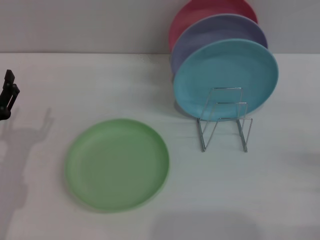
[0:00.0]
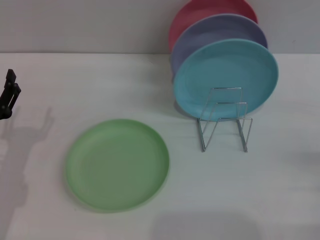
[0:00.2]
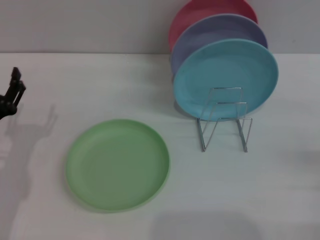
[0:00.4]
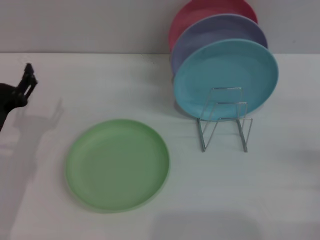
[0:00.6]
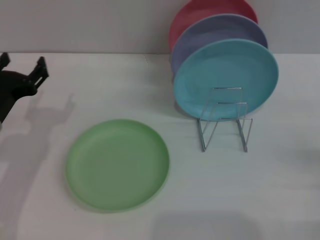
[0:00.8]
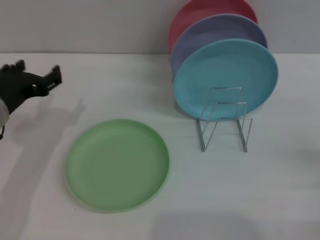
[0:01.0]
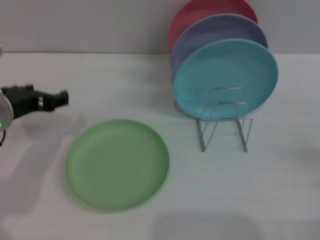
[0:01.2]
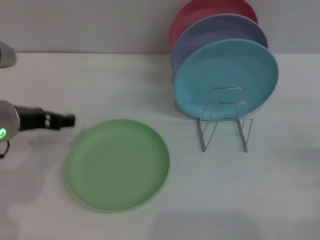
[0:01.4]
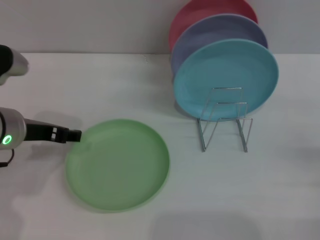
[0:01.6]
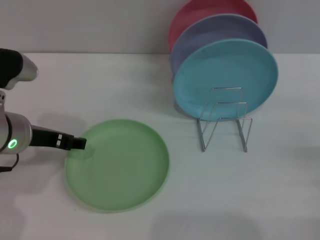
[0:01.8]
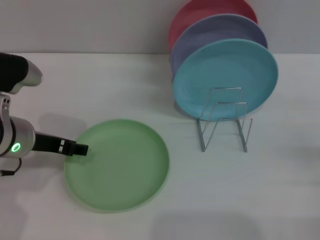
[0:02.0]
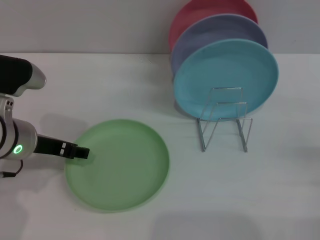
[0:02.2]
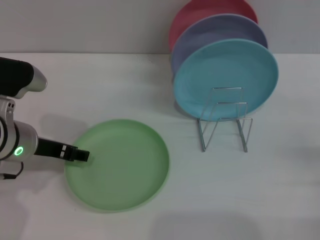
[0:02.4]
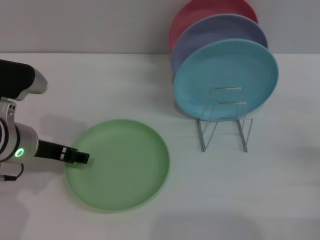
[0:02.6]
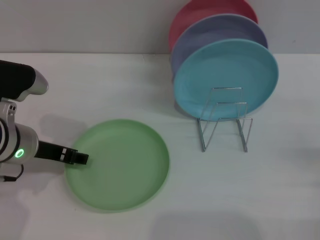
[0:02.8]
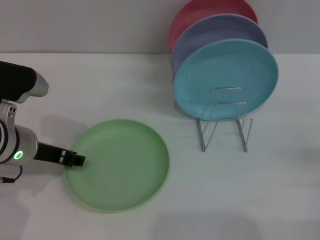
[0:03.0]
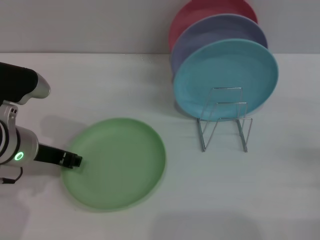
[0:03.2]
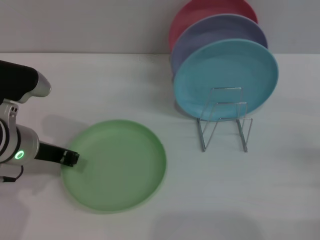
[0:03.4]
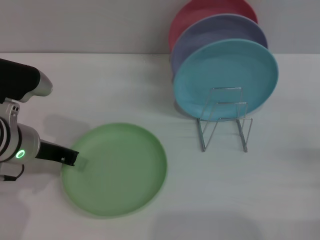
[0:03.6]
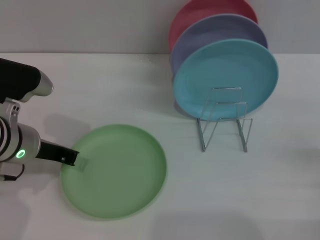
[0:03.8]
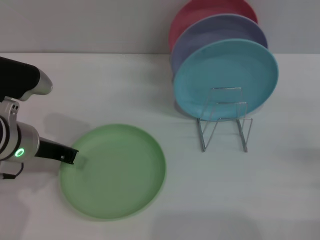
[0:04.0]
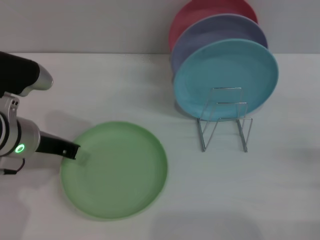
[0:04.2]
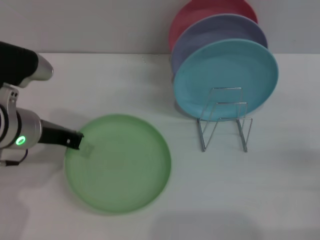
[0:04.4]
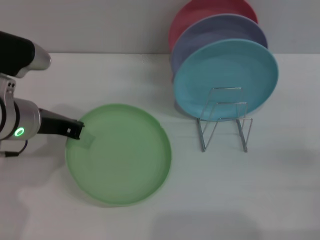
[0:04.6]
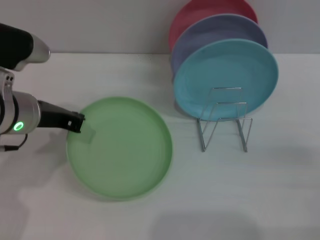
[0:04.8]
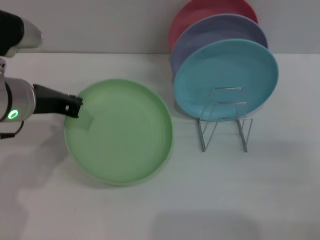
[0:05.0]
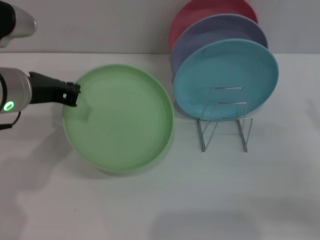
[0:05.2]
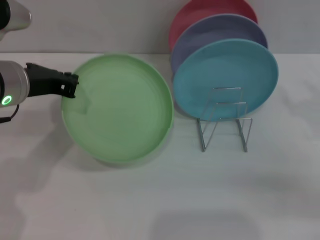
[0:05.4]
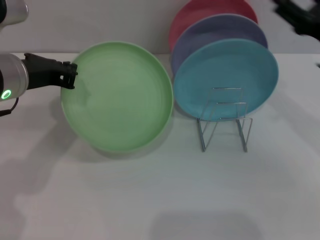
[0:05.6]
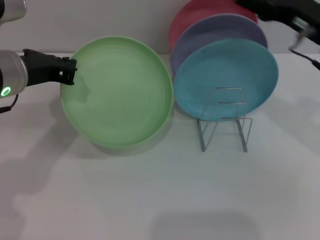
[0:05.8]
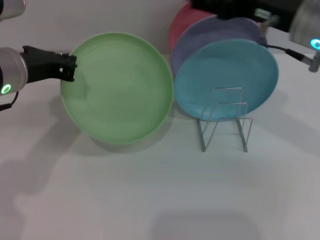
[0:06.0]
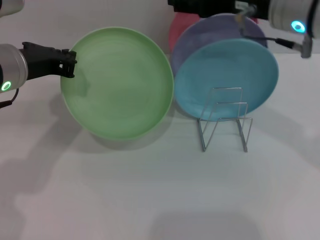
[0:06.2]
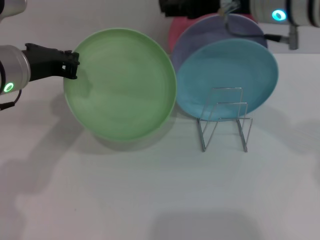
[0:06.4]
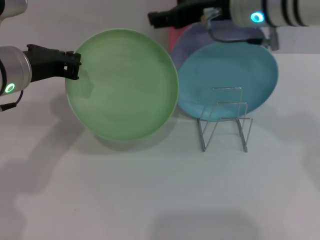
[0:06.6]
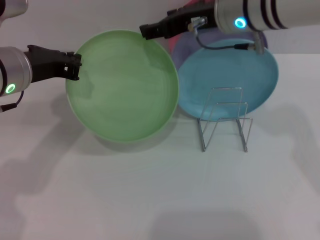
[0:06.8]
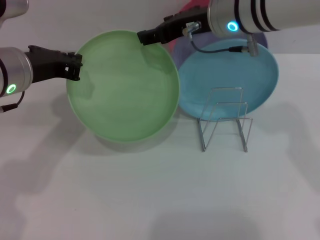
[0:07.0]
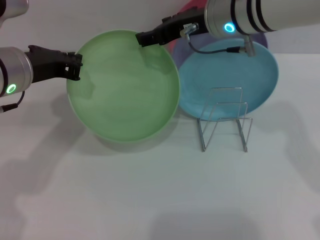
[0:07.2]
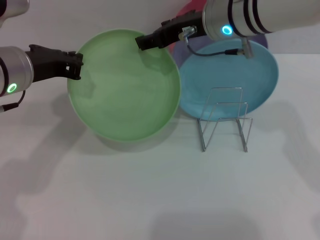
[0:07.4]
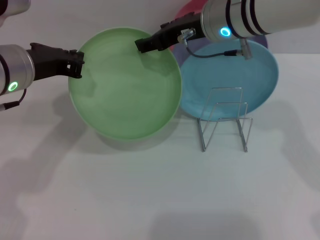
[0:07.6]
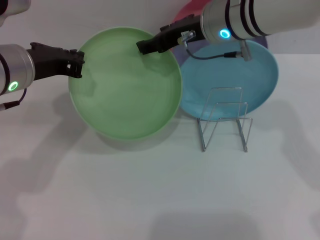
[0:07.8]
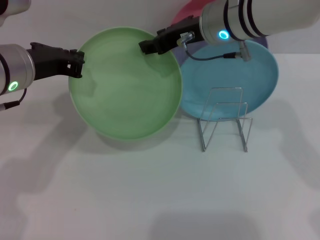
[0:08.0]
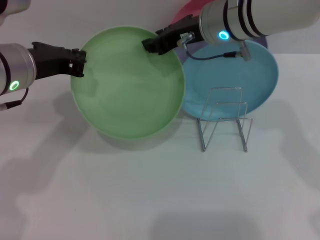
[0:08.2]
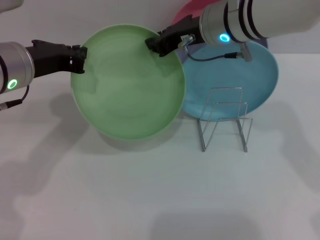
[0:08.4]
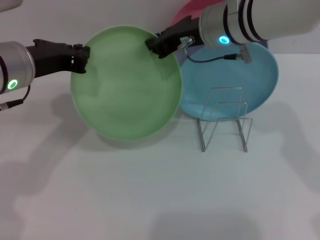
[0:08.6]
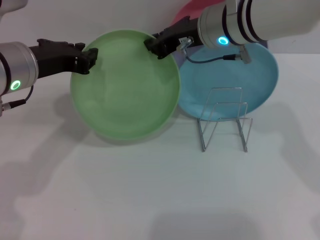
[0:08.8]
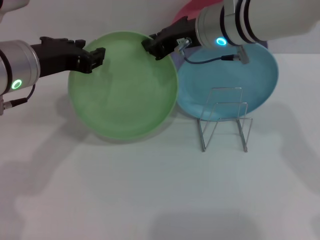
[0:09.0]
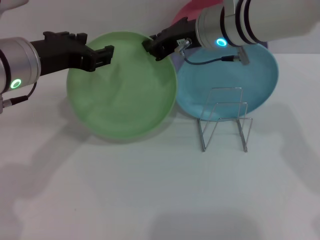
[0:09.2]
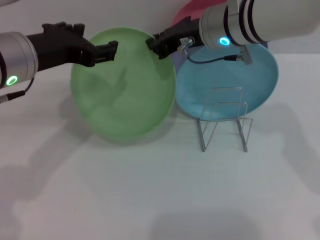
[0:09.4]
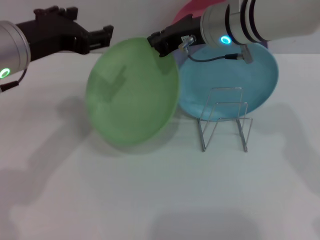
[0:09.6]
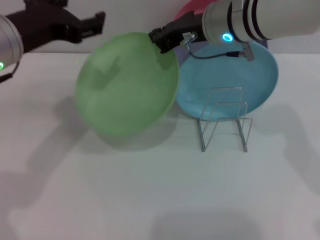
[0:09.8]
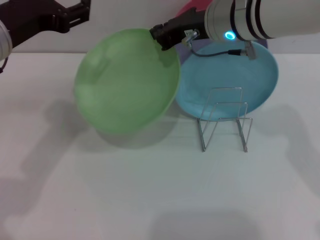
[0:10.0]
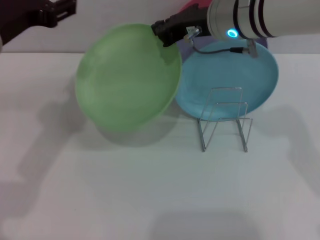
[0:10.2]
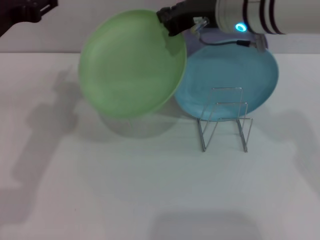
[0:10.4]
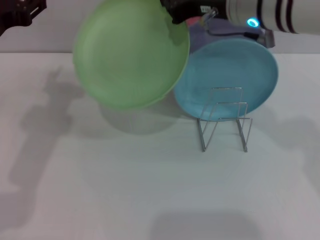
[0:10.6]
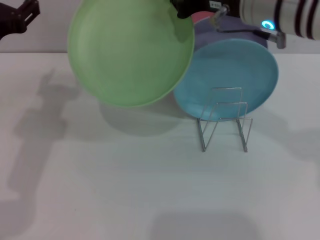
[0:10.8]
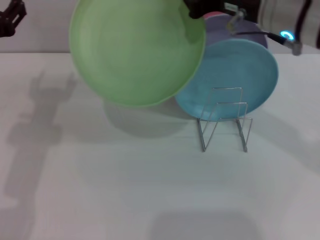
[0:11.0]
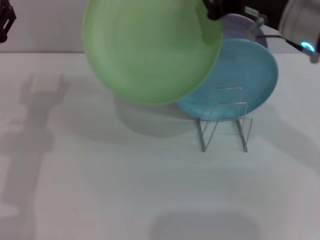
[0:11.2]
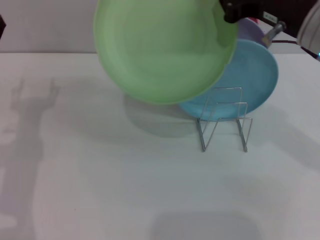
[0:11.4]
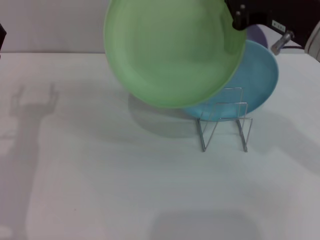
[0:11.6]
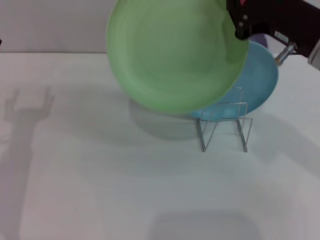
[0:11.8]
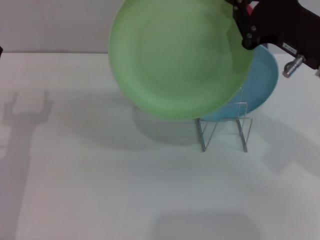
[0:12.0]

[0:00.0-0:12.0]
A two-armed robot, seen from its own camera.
Task of the whole recording: Grip the plate with one hand, pass it to the other, then set it on the shelf.
Step, 0:00.0 to 0:05.4: Pick up the plate with the left gripper.
Step, 0:05.6 to 0:09.6: Pass the plate from the left gripper to the right gripper.
0:00.0 to 0:01.6: The left gripper shifts roughly 15 cm upward, forward and to the right.
0:01.6 to 0:03.0: There are only small adjustments of the grippers.
0:03.0 to 0:04.4: The left gripper closes its fingers.
0:04.4 to 0:06.0: The left gripper moves upward, about 5 cm; the right gripper shifts about 30 cm to the left, upward and forward.
0:06.0 to 0:07.6: The right gripper shifts about 10 cm to the left and forward.
0:07.6 to 0:09.0: The left gripper opens up, while the right gripper closes.
0:09.0 to 0:10.4: The left gripper opens.
0:10.4 to 0:12.0: The right gripper heads to the right and backward, covering some 15 cm; the left gripper is displaced downward by about 15 cm.

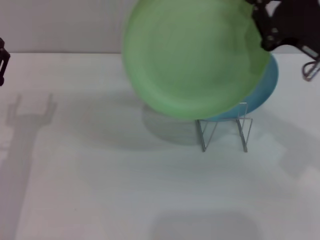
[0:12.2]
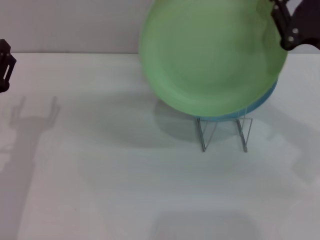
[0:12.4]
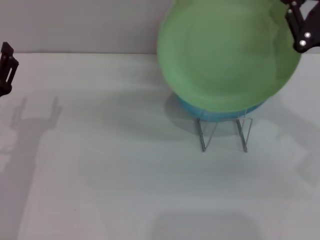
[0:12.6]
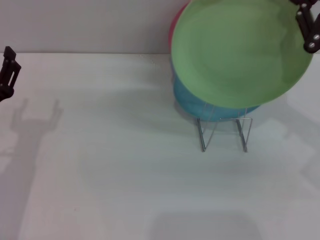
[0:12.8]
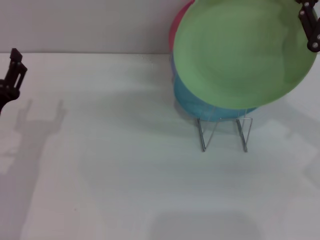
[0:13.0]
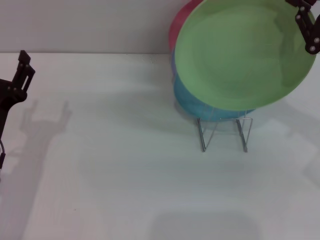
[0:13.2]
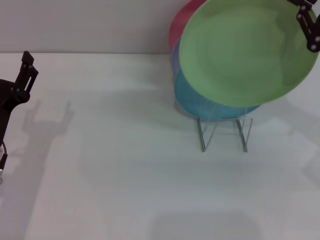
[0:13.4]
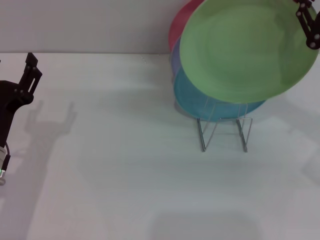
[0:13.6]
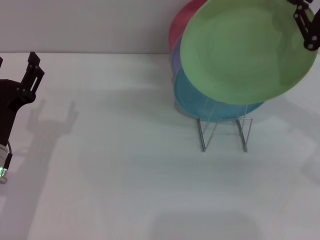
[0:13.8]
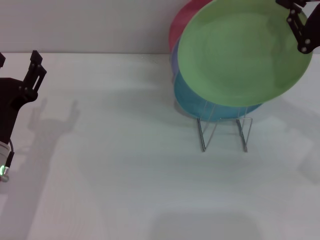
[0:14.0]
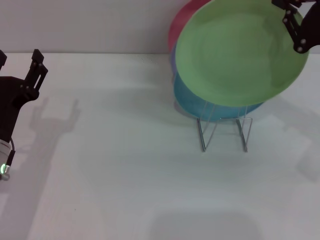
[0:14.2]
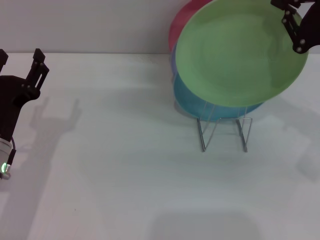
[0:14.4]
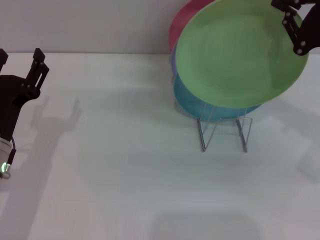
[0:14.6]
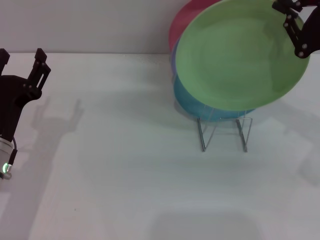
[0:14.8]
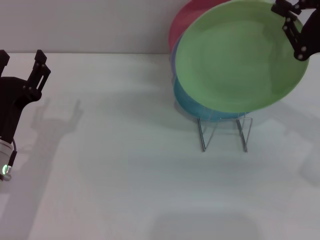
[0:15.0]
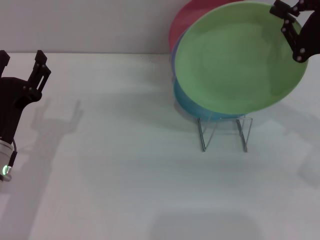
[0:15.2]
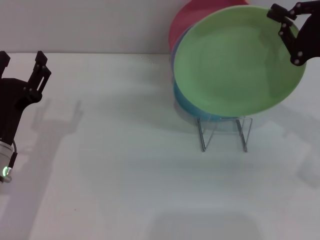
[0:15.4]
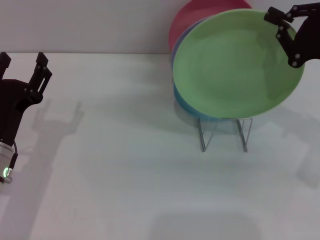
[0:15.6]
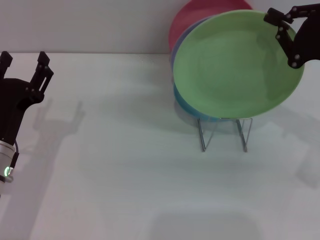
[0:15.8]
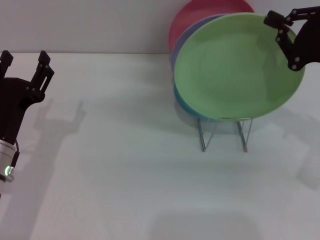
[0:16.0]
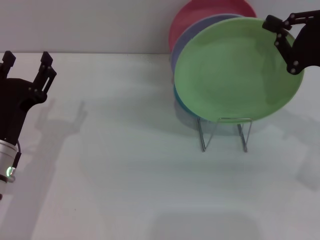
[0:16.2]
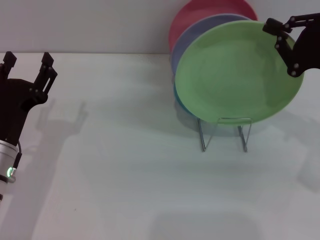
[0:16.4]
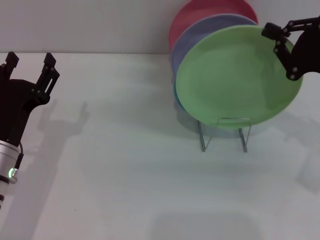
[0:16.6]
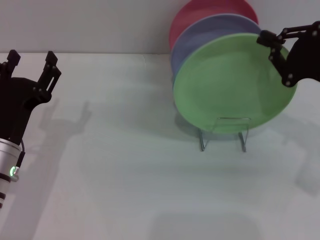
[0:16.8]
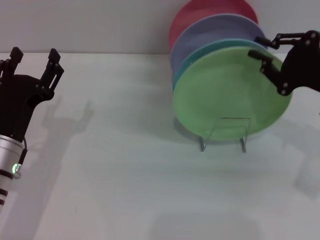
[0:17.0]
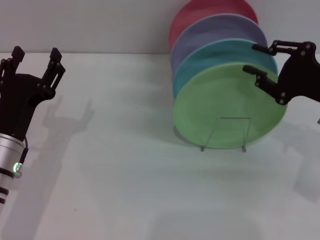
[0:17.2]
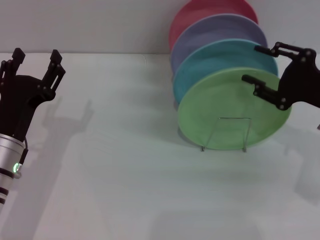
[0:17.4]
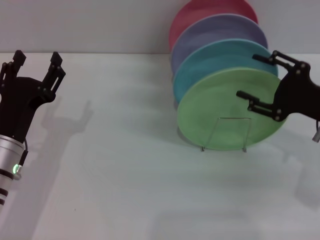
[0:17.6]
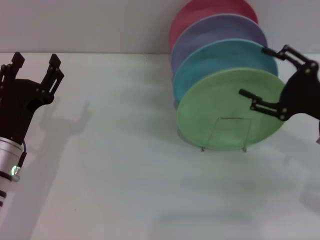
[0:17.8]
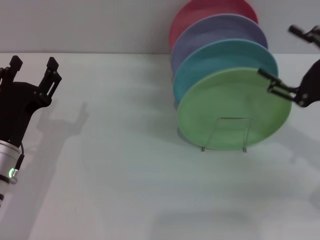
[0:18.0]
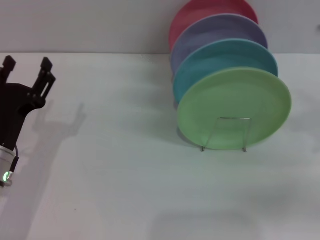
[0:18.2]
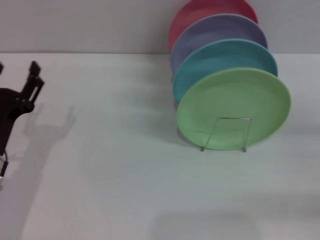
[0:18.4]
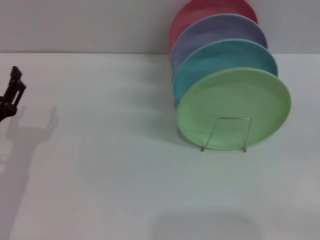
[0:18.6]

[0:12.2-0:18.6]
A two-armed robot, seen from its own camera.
Task of the whole recording: Grip the plate with one hand, pass it to the other, then set it on the shelf.
Step, 0:12.2 to 0:17.8: Place the plate on the shelf with the right gripper.
0:12.2 to 0:13.8: The right gripper is displaced to the right by some 5 cm.
0:13.8 to 0:17.0: There are only small adjustments of the grippers.
0:17.0 to 0:18.6: The left gripper ends up approximately 5 cm from where it was. Meanwhile the right gripper shifts approximately 20 cm to the right, backward and downward, and opens its fingers.
